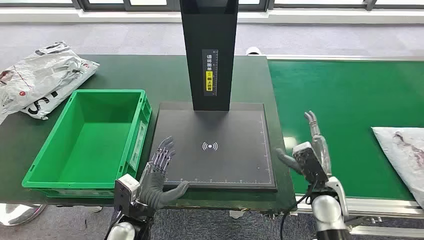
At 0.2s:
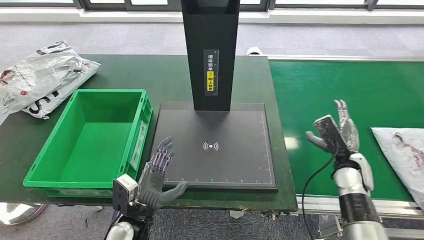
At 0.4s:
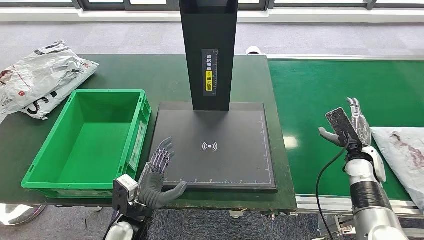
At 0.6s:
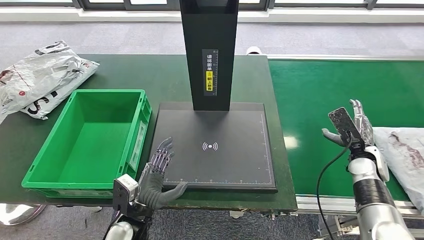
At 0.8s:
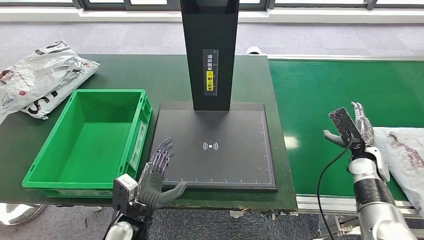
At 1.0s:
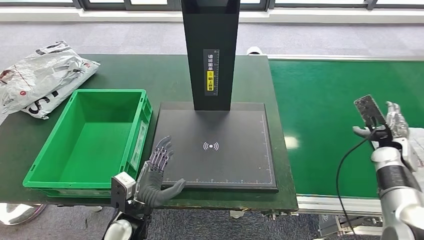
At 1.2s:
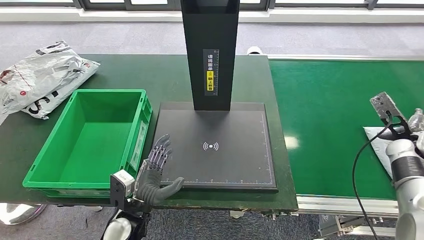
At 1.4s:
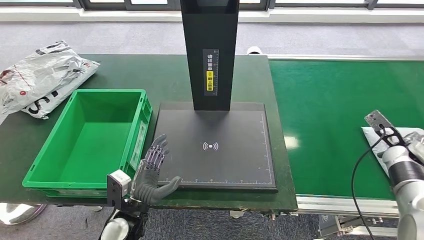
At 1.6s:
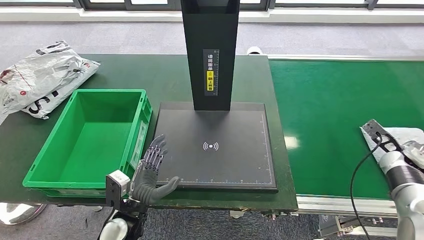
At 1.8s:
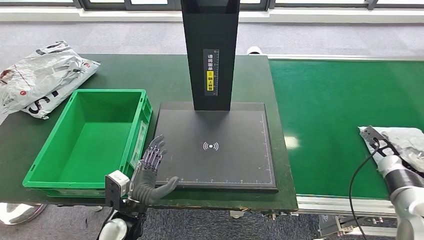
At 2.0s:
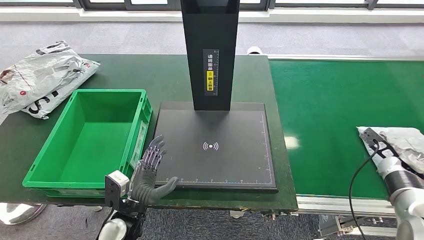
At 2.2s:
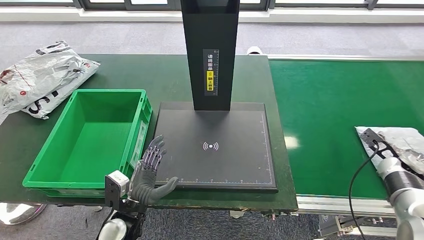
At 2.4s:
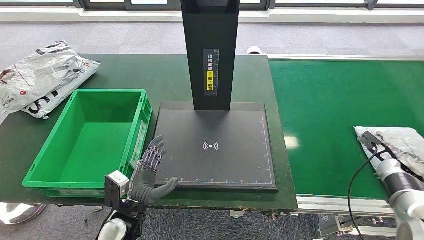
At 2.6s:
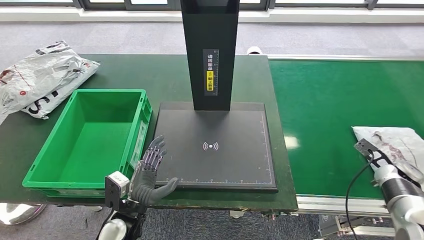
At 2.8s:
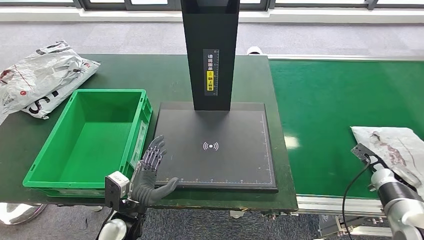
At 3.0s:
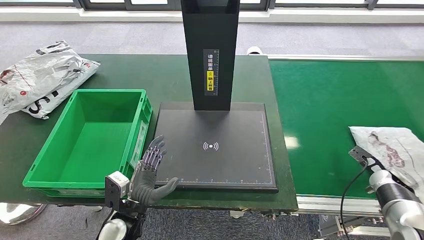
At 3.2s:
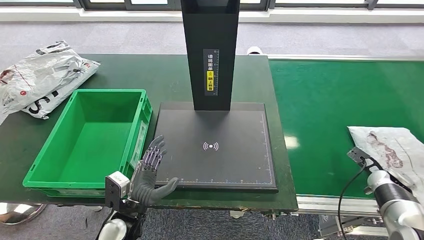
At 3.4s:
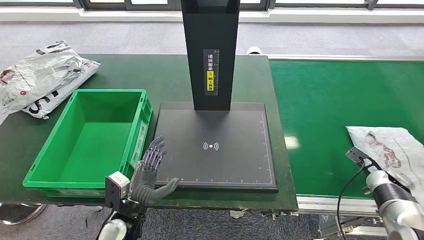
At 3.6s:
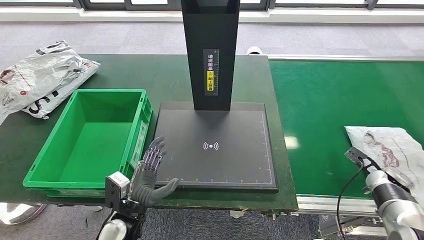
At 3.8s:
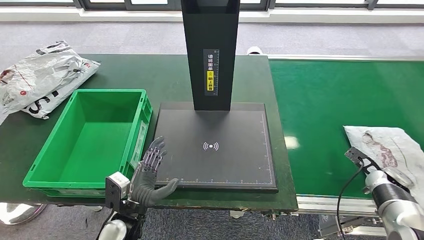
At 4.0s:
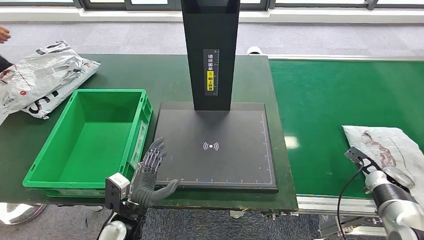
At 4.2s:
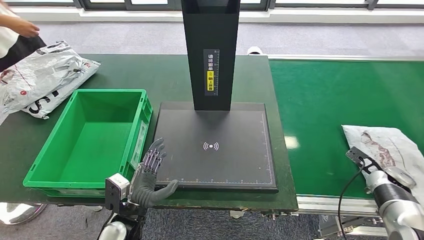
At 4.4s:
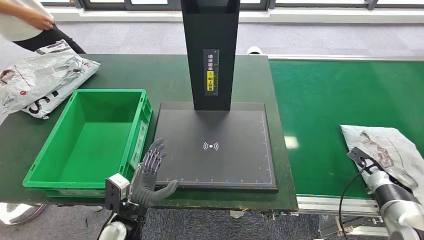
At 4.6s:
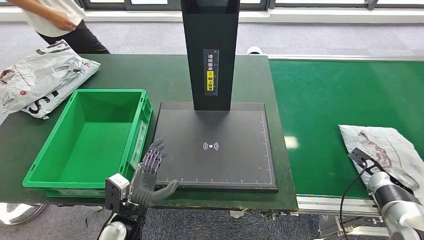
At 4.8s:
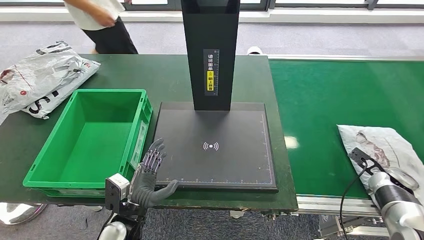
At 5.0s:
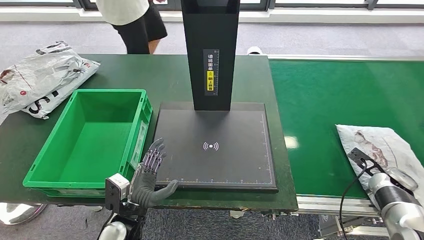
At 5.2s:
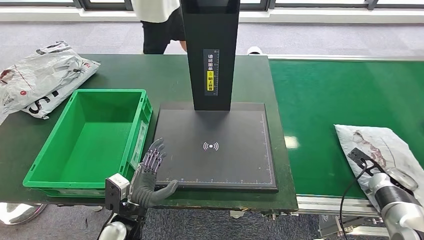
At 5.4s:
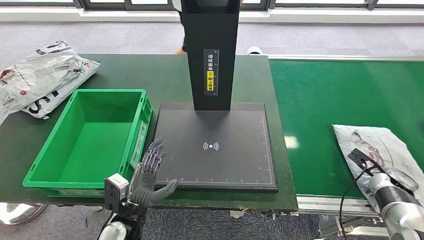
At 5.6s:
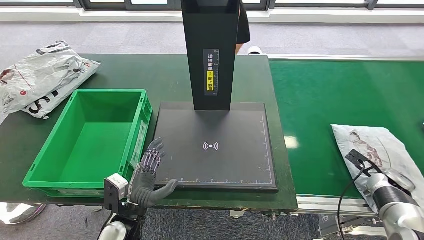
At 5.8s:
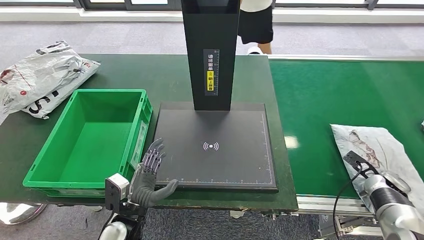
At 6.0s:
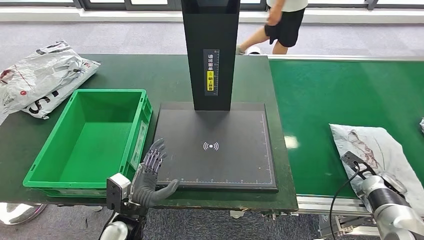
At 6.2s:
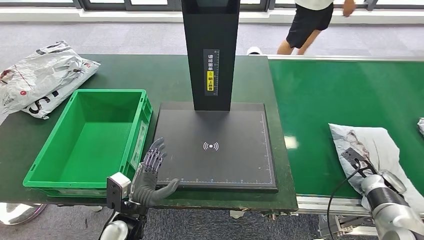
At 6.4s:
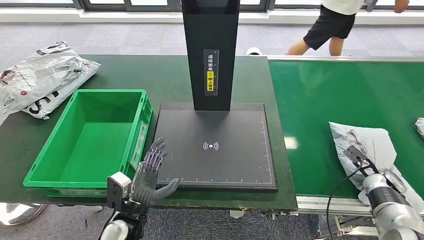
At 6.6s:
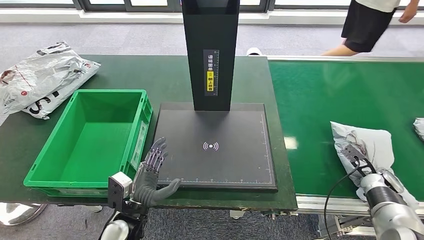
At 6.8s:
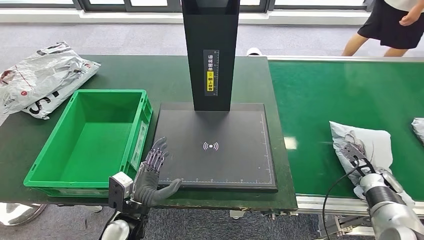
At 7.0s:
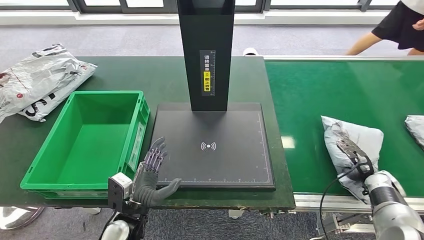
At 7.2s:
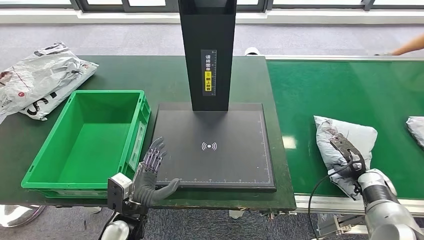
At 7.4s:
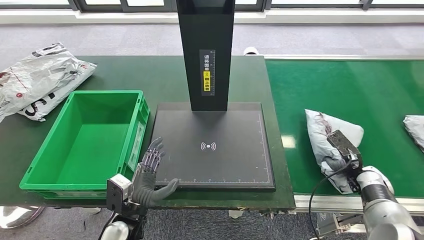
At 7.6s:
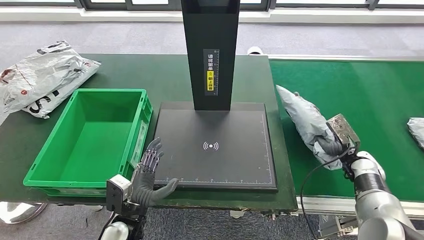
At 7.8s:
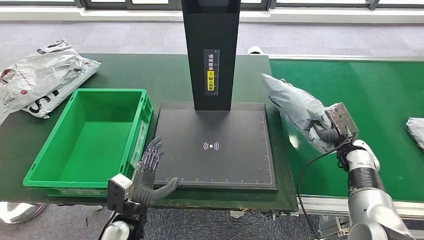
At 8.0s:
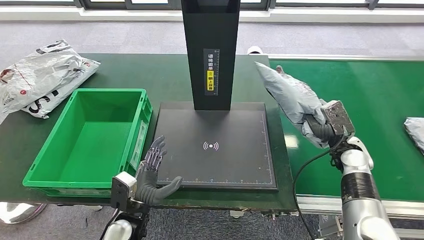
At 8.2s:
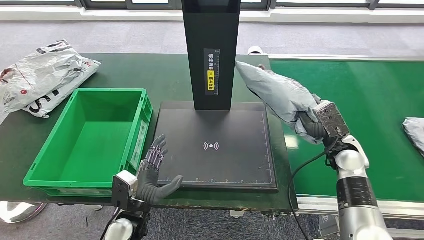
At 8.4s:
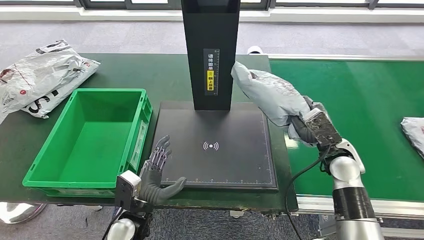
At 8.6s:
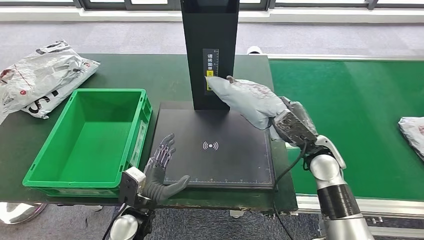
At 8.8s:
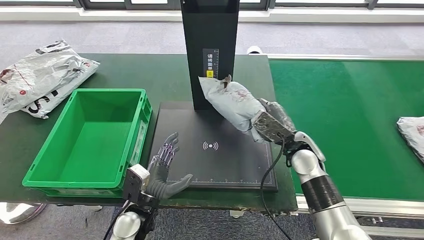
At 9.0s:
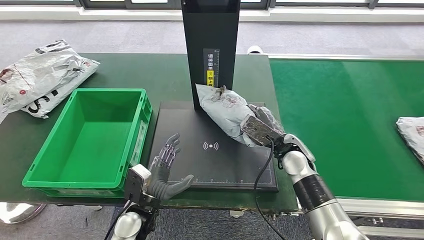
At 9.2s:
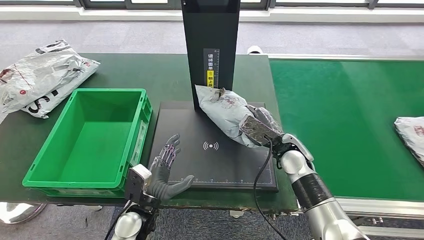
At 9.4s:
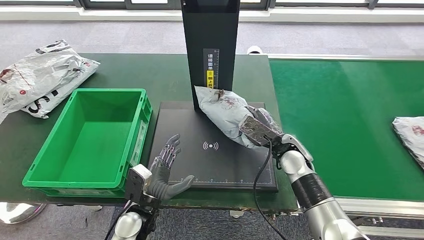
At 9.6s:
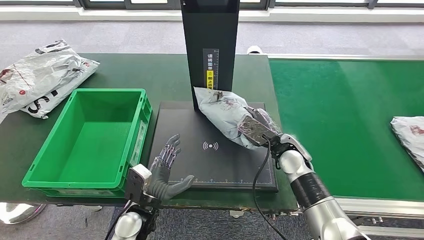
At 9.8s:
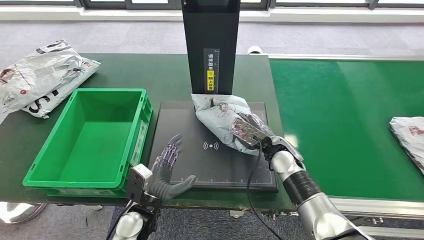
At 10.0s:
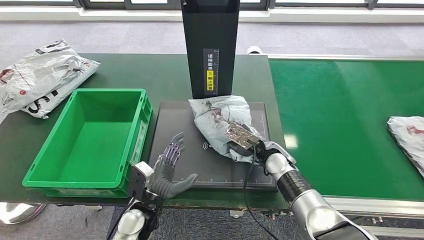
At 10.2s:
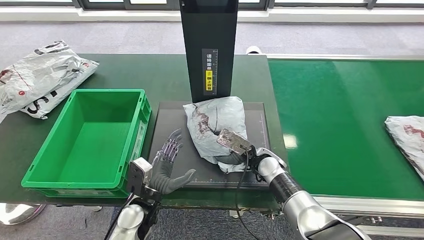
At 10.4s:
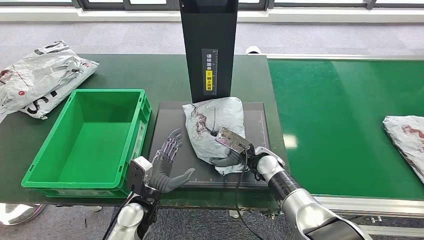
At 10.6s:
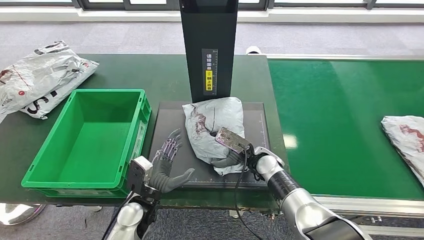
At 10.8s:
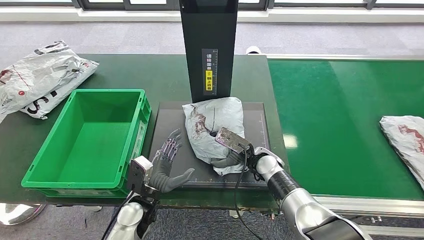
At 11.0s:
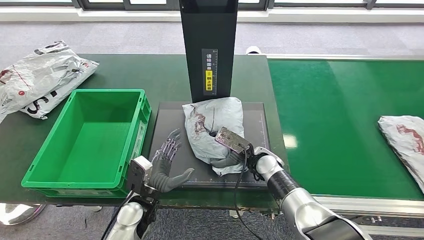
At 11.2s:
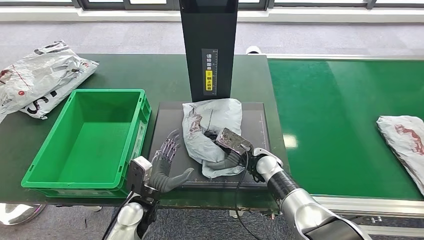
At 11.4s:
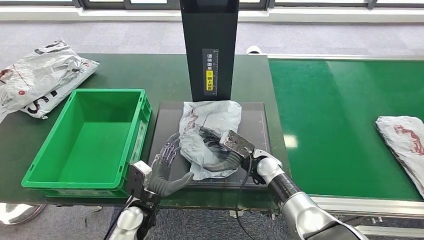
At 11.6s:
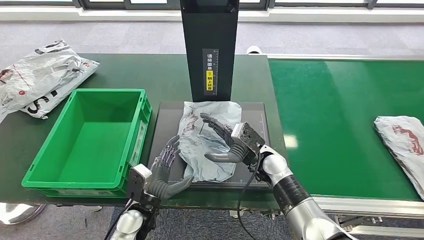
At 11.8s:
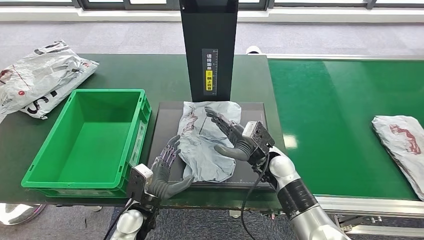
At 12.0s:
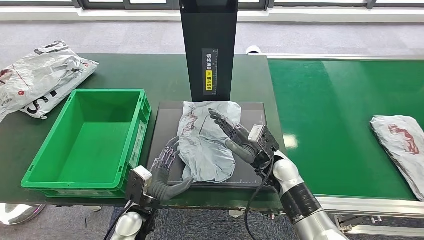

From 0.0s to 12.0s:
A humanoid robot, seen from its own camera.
Step, from 0.0s to 8.4s: Take the parcel off the conveyor belt.
From 1.6s to 3.0s: The right hand heads downward, covering some 5 cm.
From 3.0s to 4.4s: Neither hand changes place.
From 4.4s to 6.0s: The hands stay close to where they were, moving slightly.
From 6.0s to 7.6s: The right hand is displaced to the left by about 5 cm.
From 10.4s to 12.0s: The right hand changes place by about 5 cm.

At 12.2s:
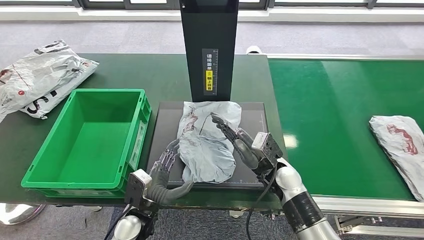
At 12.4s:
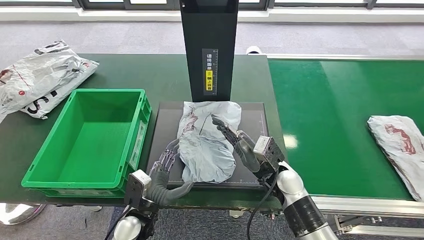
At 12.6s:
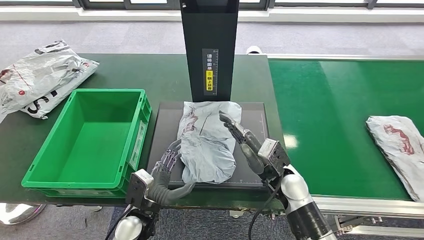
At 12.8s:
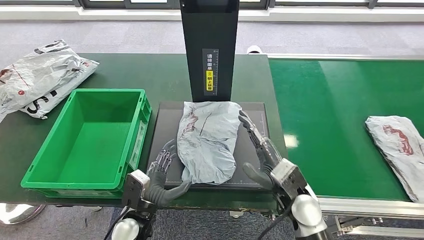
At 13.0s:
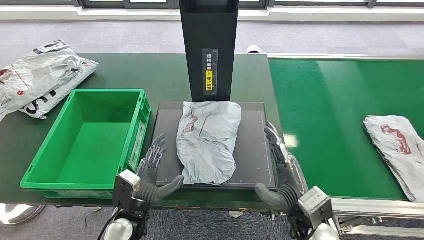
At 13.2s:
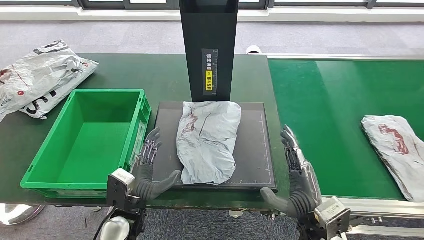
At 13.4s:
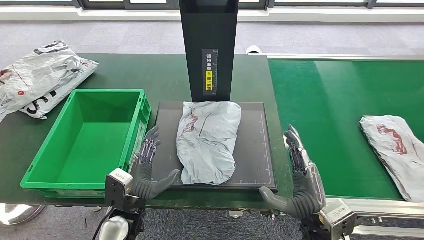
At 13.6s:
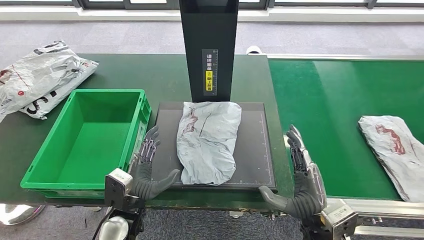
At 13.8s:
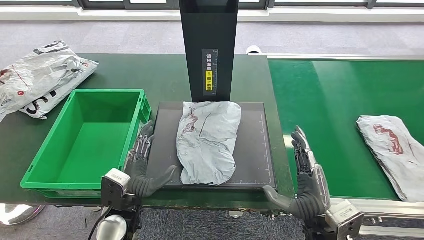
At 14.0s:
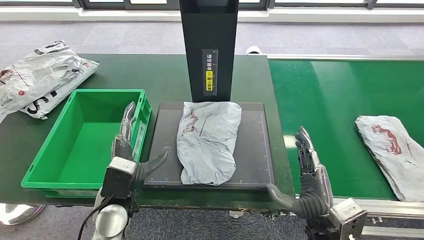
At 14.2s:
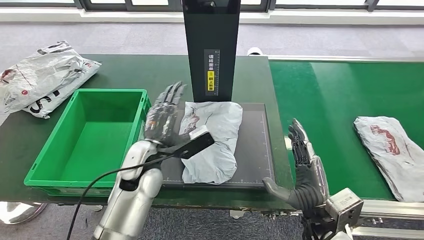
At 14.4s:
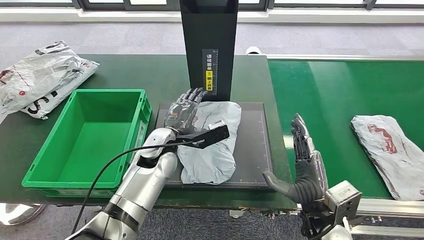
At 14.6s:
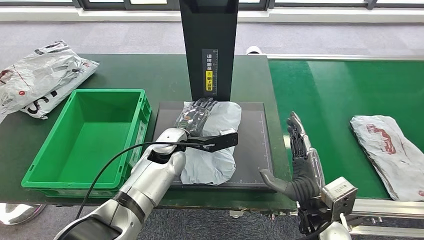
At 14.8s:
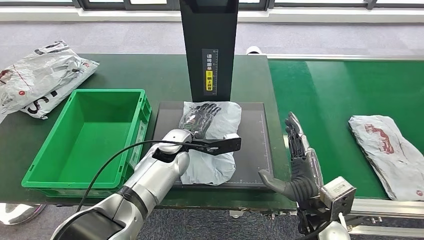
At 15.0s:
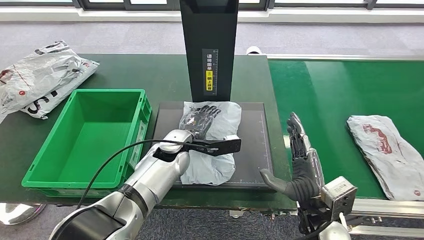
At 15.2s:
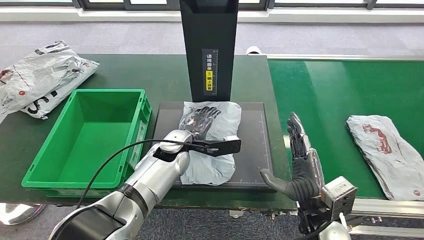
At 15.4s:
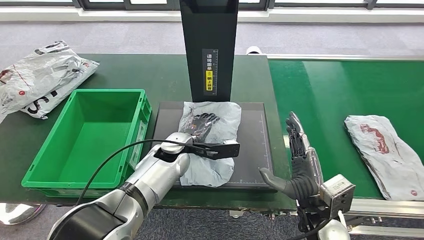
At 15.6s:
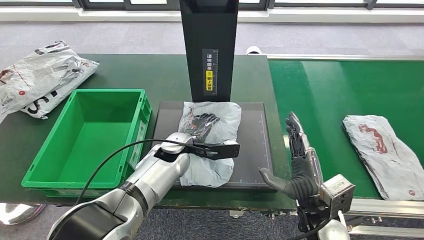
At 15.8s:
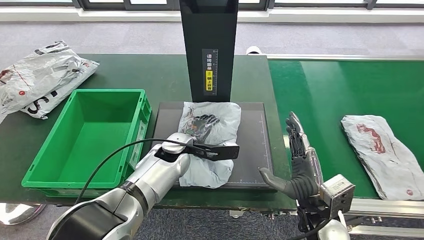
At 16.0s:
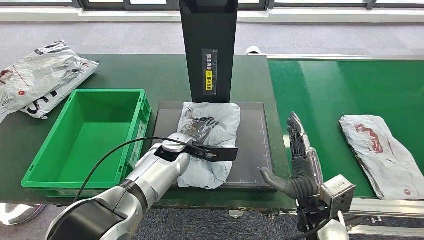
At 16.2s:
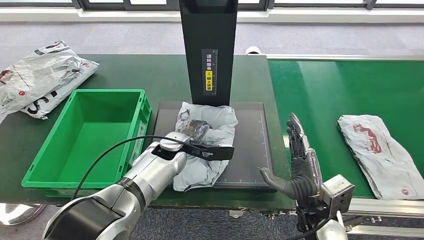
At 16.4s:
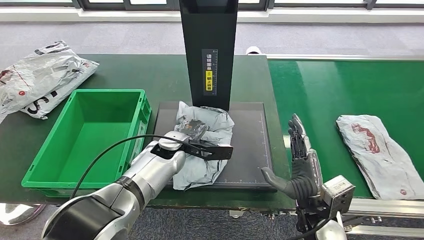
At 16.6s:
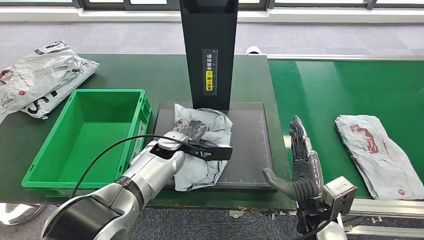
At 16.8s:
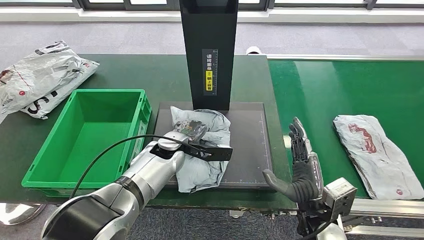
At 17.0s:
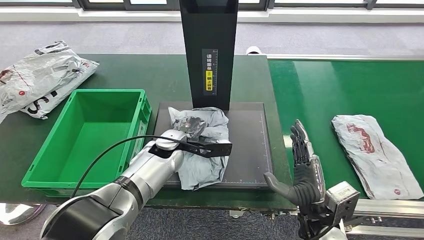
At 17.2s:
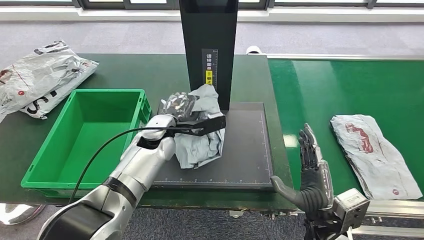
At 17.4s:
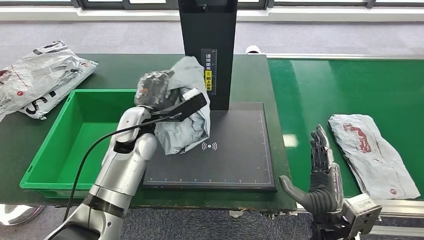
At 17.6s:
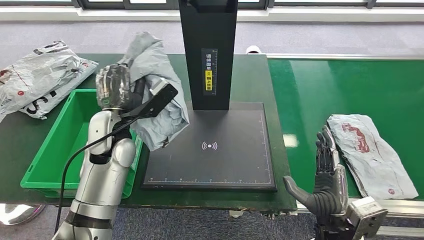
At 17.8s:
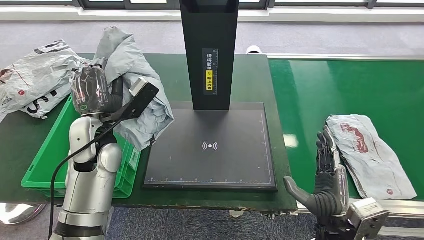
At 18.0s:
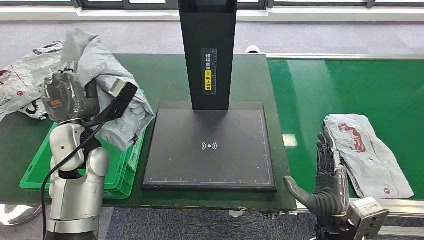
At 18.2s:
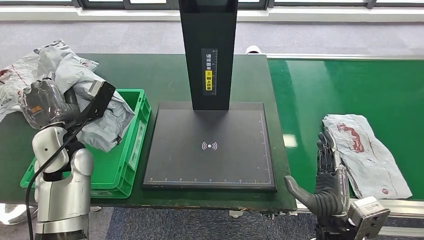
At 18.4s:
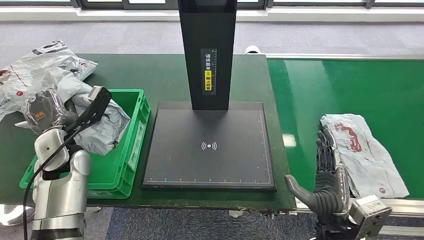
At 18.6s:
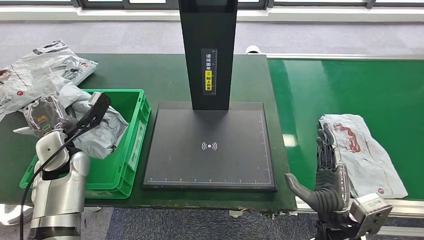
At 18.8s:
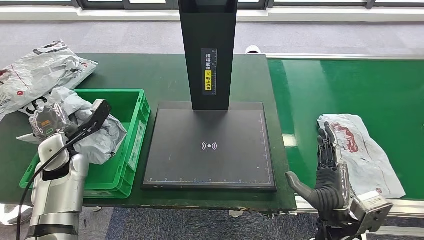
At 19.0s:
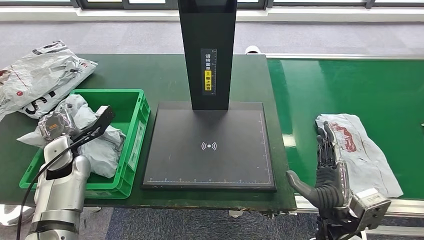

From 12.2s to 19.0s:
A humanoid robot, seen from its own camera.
Step, from 12.4s to 17.6s: Pick up the parcel from the inbound machine.
From 12.2s to 13.6s: The right hand shifts some 15 cm backward and to the right.
From 15.0s to 16.2s: The hands stay close to where they were, moving slightly.
